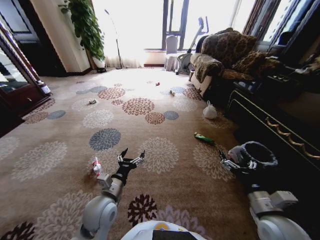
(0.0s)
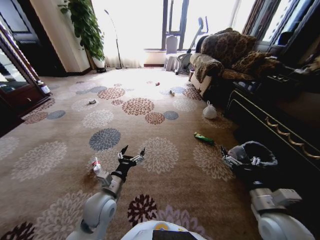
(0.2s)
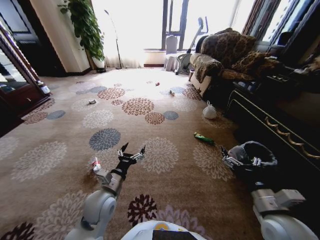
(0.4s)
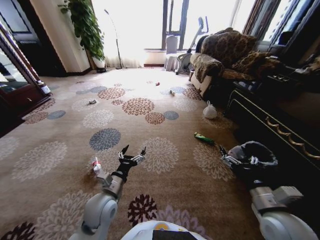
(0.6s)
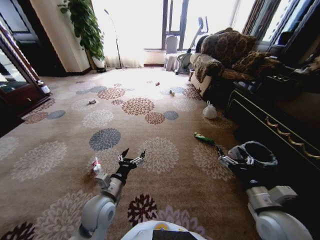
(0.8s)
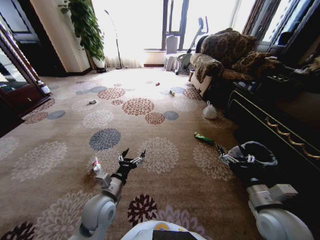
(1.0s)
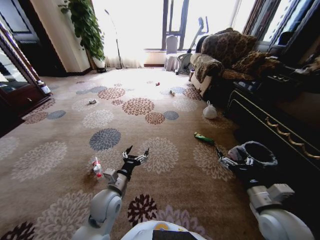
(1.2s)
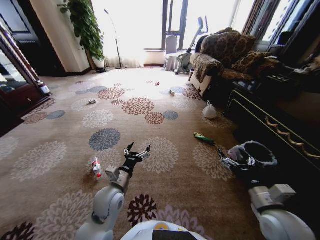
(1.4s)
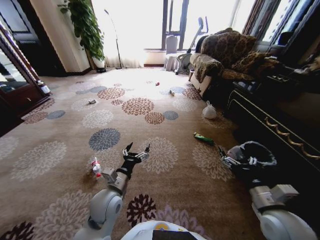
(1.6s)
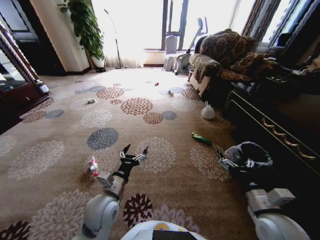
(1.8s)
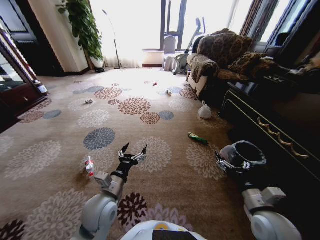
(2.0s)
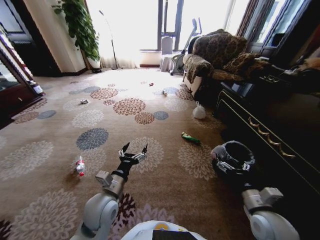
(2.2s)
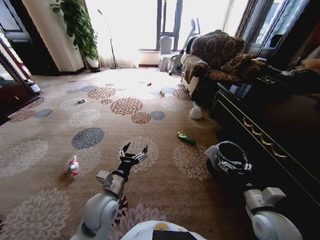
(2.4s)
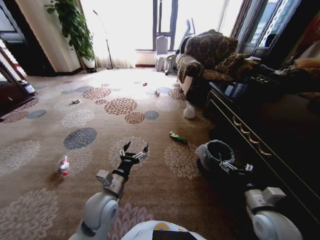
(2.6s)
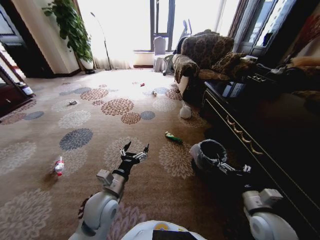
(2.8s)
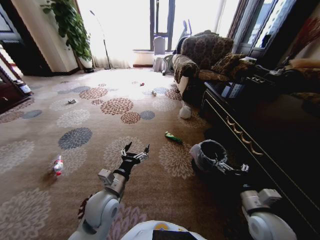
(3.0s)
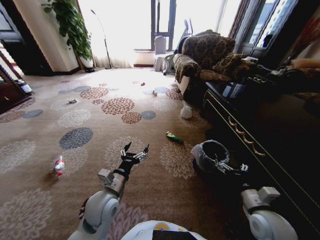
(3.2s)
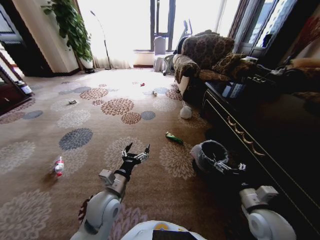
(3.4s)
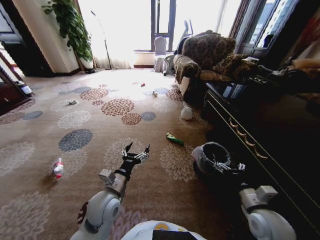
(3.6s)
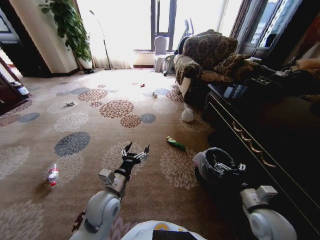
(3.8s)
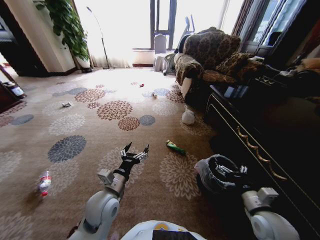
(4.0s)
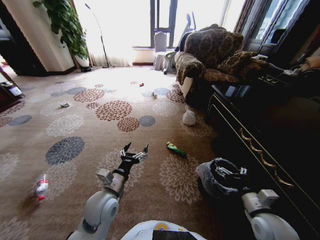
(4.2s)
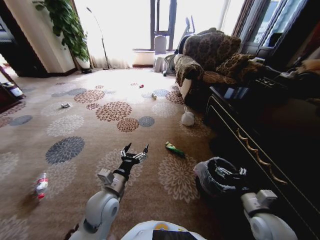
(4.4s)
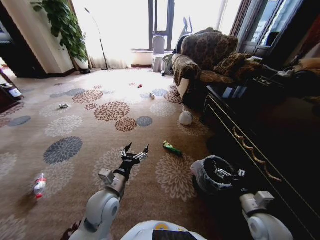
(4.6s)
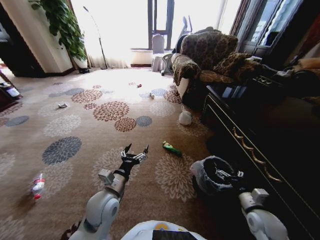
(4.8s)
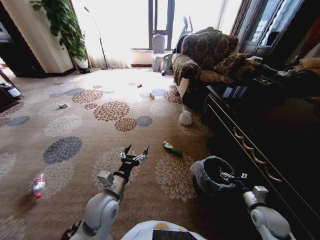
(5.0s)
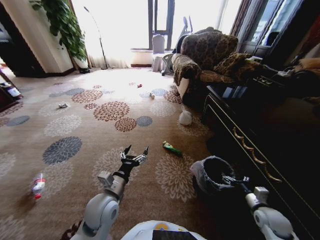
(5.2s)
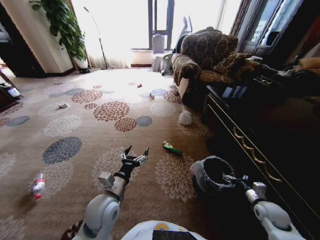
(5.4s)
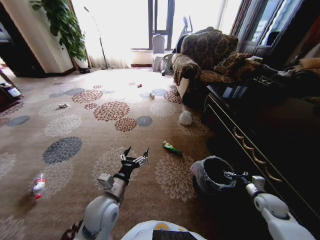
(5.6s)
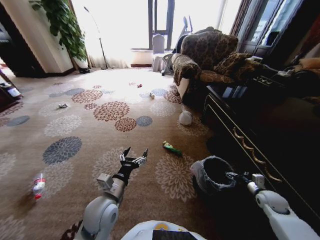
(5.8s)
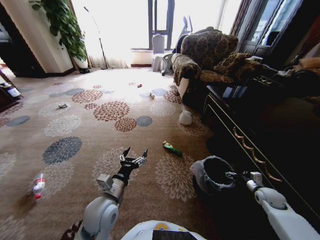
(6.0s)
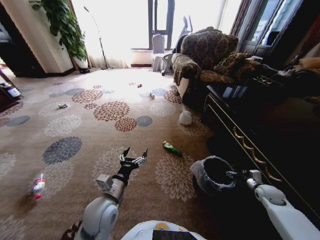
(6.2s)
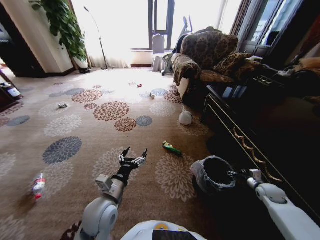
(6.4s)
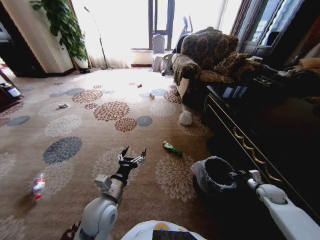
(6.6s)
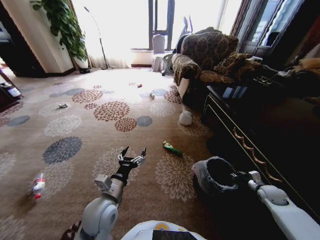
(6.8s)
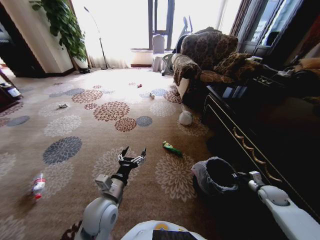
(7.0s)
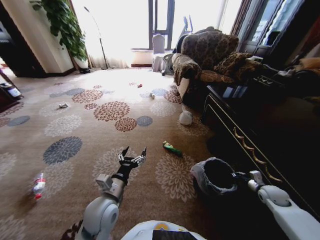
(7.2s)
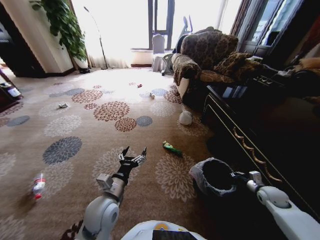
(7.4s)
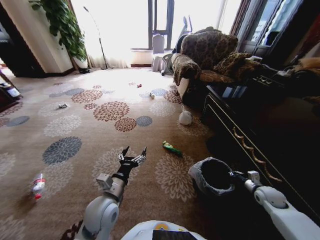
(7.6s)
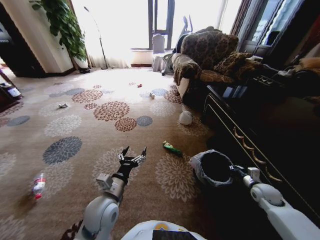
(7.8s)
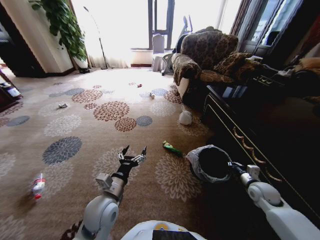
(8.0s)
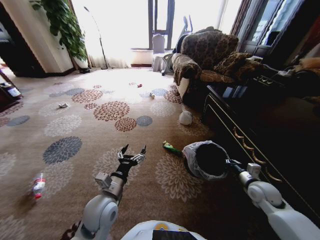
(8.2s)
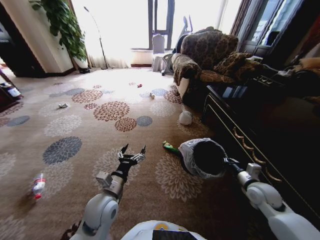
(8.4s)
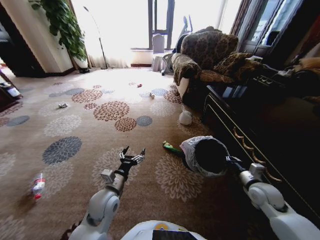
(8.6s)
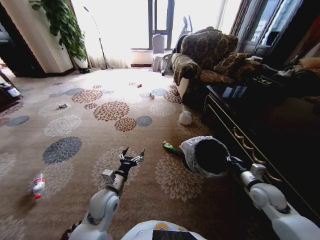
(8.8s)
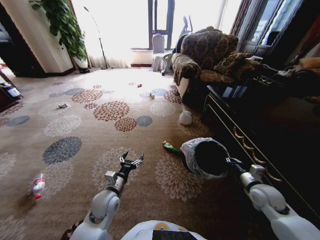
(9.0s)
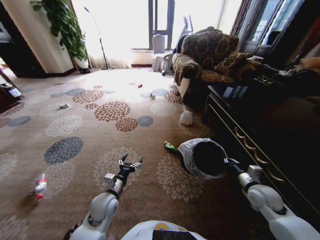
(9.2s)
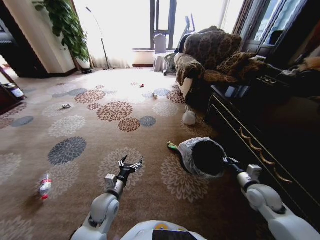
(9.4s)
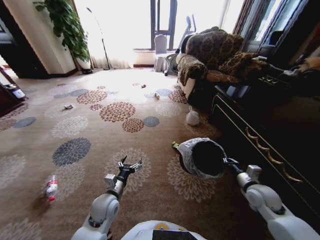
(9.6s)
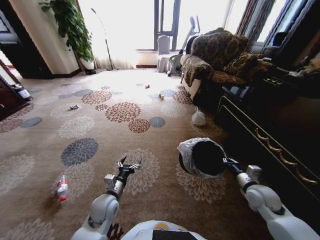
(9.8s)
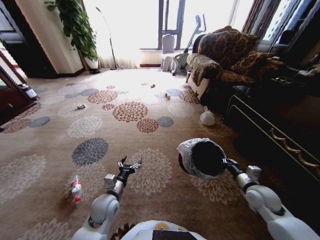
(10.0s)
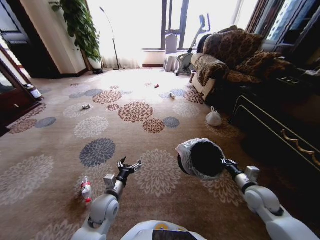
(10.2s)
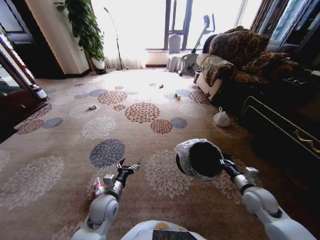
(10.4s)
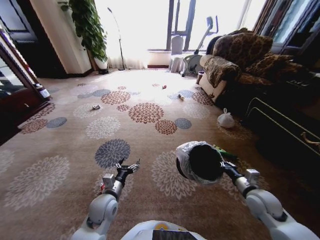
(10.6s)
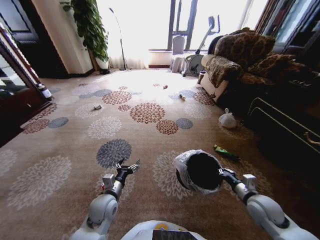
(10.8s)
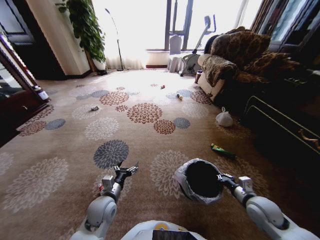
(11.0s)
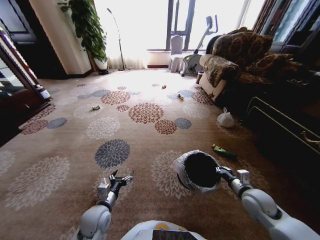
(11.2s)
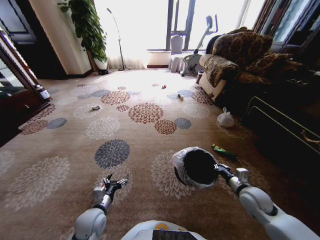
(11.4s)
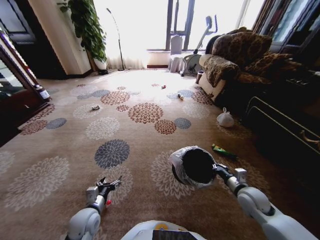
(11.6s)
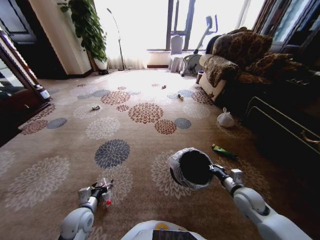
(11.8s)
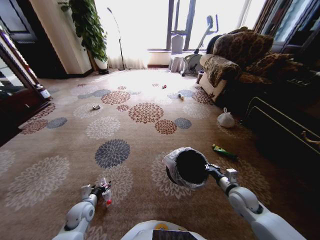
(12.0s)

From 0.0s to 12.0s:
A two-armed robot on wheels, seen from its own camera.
Task of the whole recording: Pick up the trash from the ground and place it into the trash bin.
From 4.4s to 6.0s: The right gripper travels to the right, forward and downward by about 25 cm.
From 6.0s to 7.6s: The right gripper closes its fingers.
From 7.6s to 9.0s: The left gripper moves downward, approximately 5 cm, while the right gripper travels to the left and upward by about 10 cm.
From 10.4s to 12.0s: The right gripper ends up approximately 5 cm from where it was. Meanwhile the left gripper is displaced to the left and downward by approximately 15 cm.

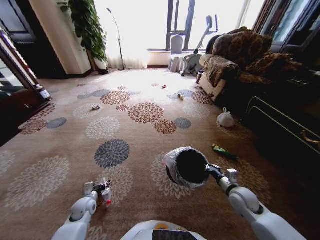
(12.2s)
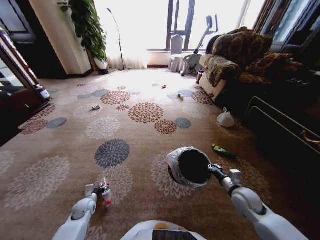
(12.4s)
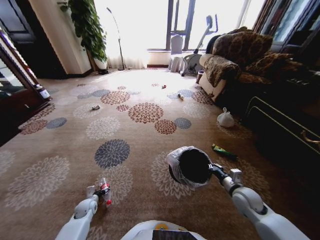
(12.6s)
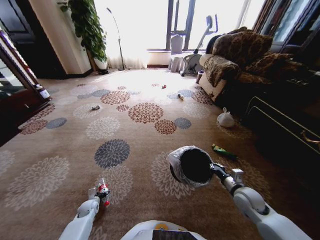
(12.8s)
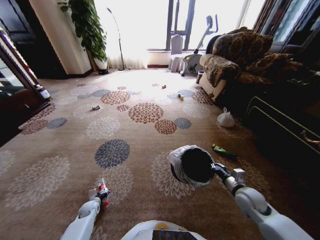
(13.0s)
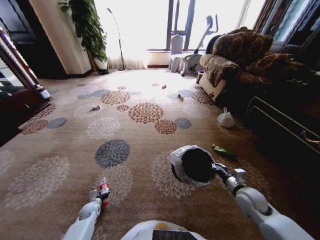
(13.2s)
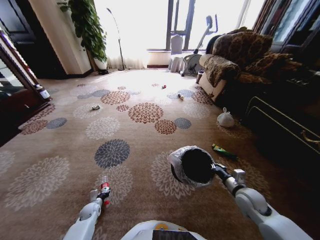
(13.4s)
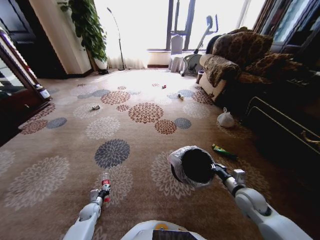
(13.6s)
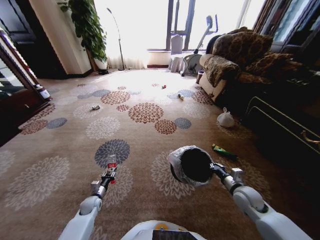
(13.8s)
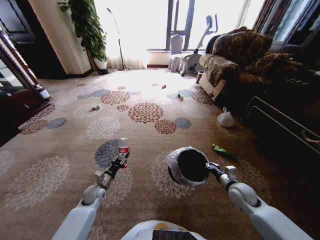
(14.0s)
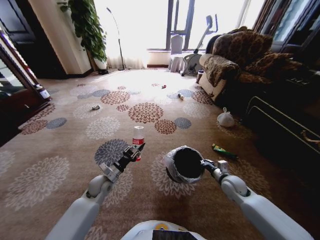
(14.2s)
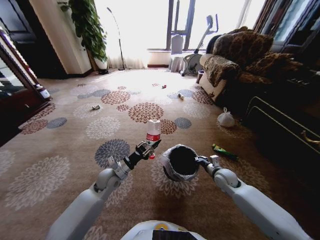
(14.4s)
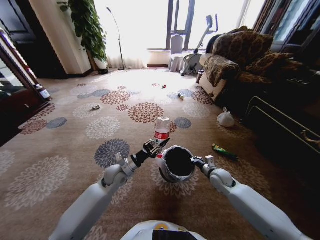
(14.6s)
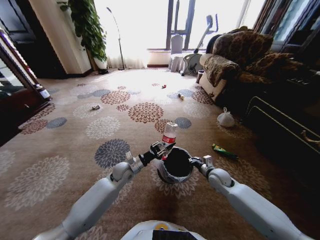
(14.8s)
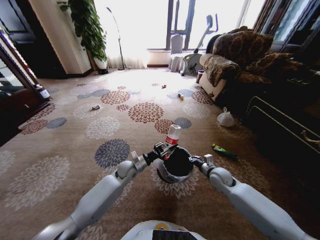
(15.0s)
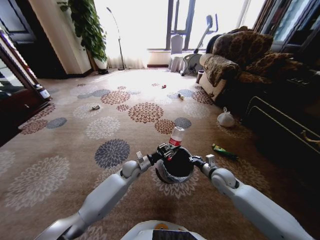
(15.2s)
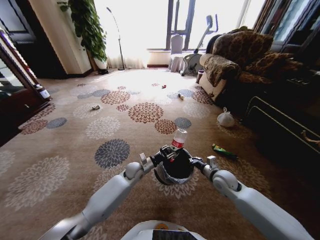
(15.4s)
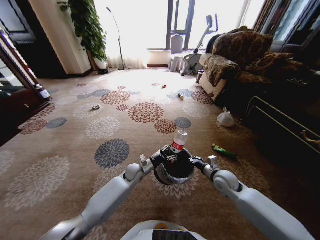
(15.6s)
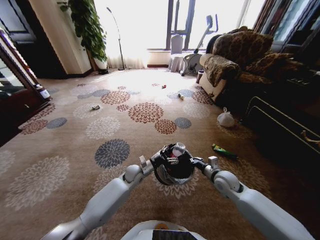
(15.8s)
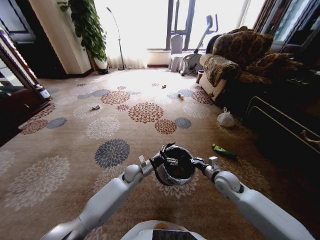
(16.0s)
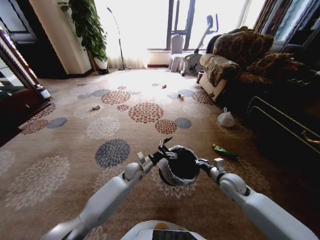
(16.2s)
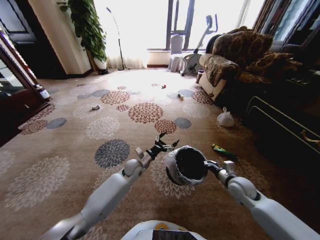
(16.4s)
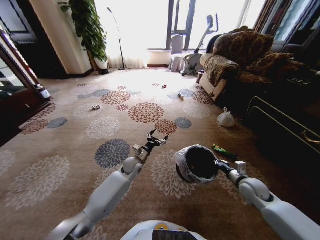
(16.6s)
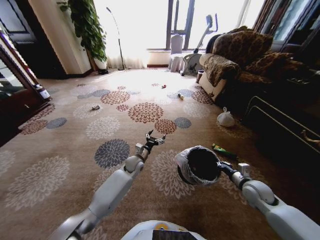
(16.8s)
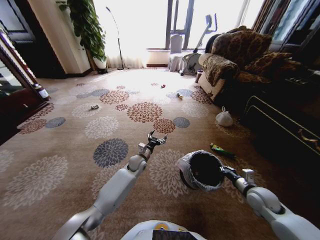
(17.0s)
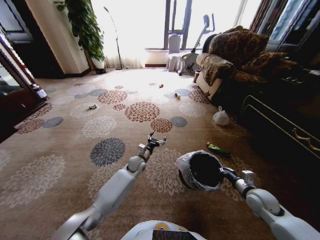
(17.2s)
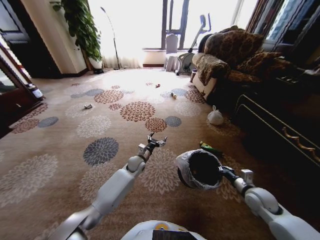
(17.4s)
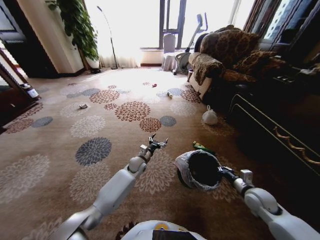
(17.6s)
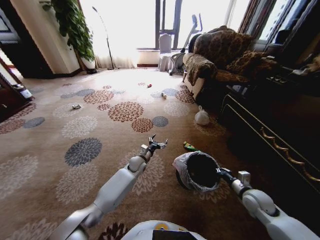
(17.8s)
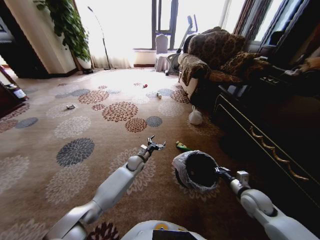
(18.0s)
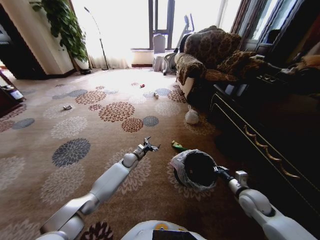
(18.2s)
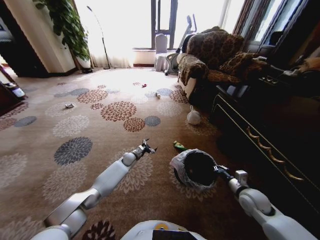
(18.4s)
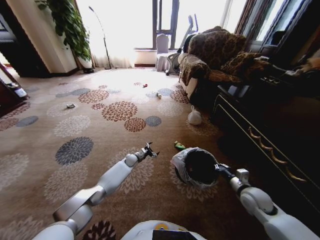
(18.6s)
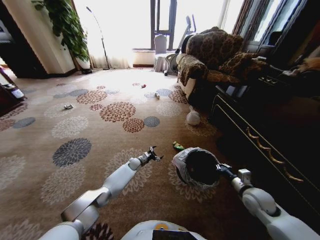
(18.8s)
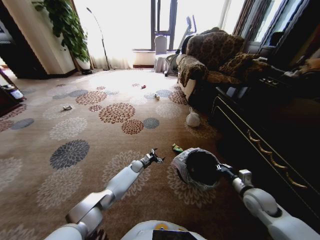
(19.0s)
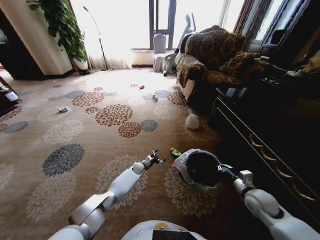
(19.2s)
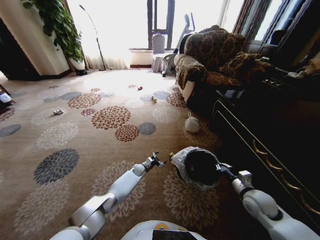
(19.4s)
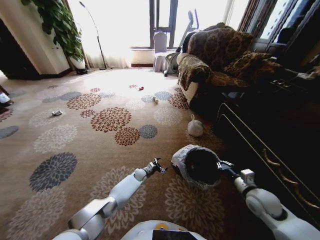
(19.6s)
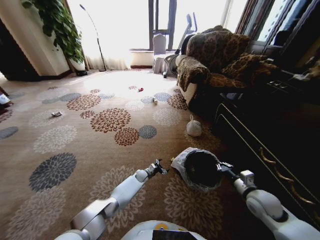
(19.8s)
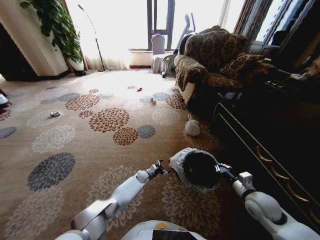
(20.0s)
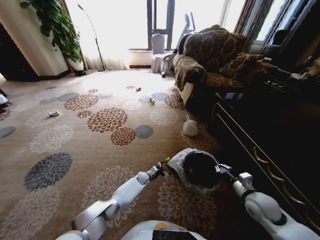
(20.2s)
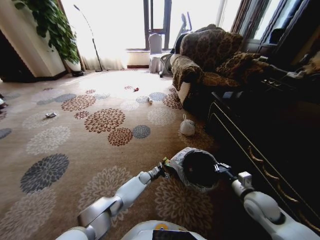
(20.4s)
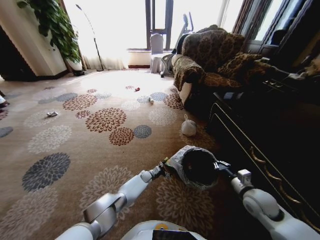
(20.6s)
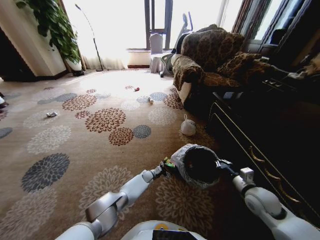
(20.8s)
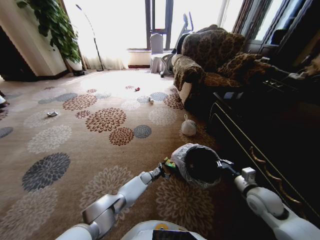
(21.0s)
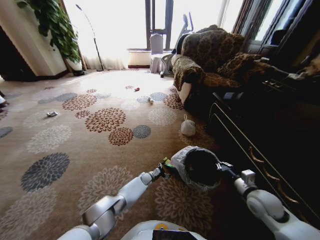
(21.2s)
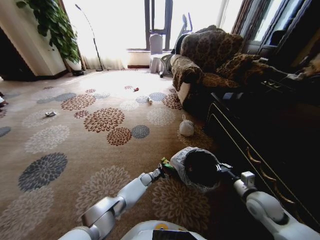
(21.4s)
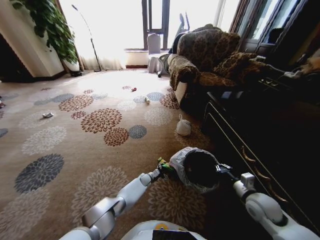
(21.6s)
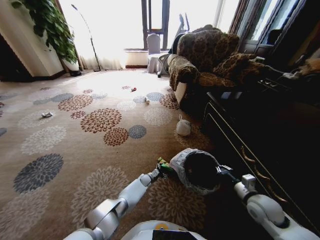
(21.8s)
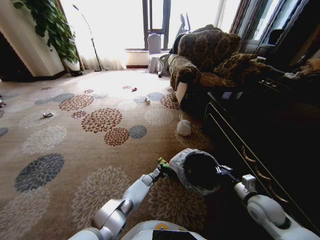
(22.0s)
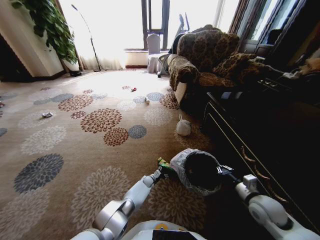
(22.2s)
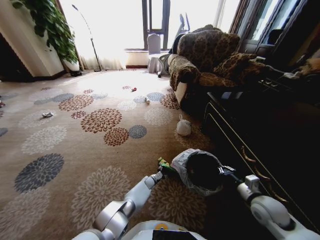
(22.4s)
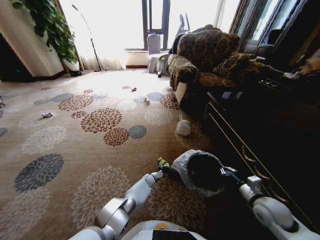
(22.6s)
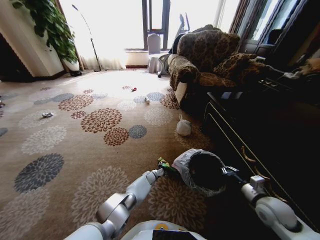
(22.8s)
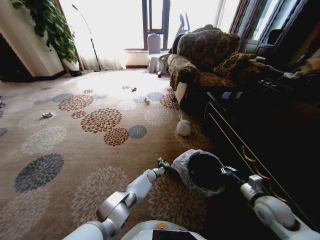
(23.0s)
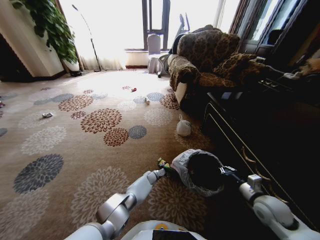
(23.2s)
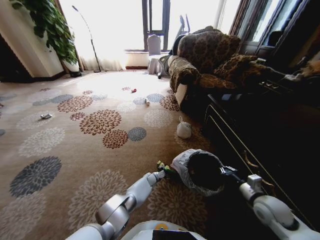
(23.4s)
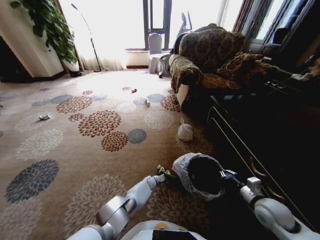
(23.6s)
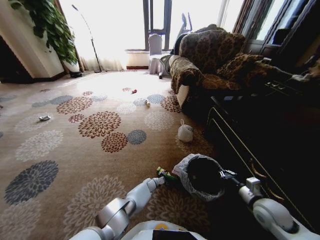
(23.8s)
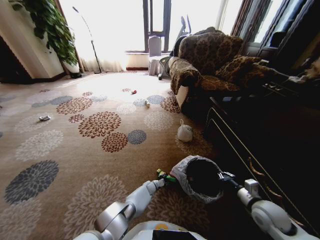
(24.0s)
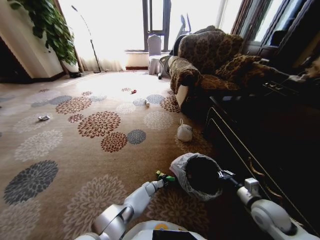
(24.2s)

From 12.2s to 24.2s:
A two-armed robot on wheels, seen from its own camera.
Task of the whole recording: Pick up the trash from the ground and place it into the trash bin.
From 12.2s to 13.8s: The left gripper goes some 5 cm downward, and closes up.
From 13.8s to 15.2s: The left gripper heads to the right, upward and forward, covering roughly 30 cm; the right gripper moves forward and to the left, roughly 10 cm.
From 15.2s to 16.6s: The right gripper is displaced to the right by about 10 cm. Meanwhile the left gripper opens its fingers.
From 16.6s to 18.2s: The left gripper goes about 10 cm forward and downward.
From 18.2s to 19.8s: The left gripper shifts roughly 15 cm downward and to the right.
From 22.6s to 24.2s: The left gripper ends up some 5 cm from where it was.
